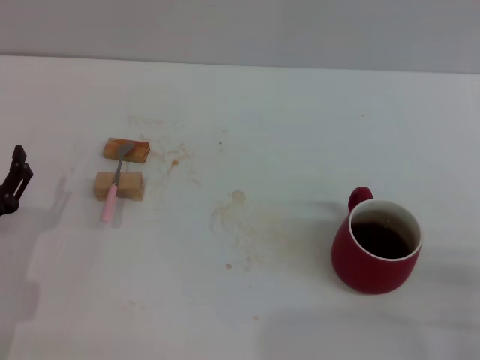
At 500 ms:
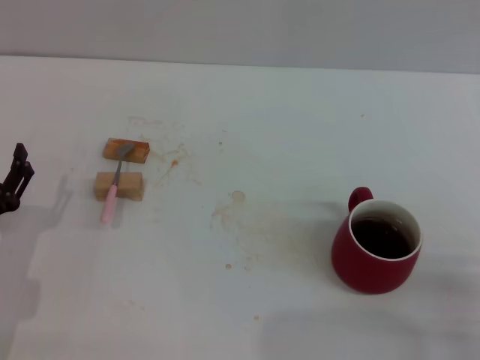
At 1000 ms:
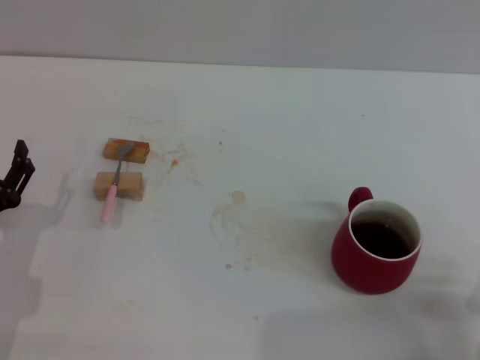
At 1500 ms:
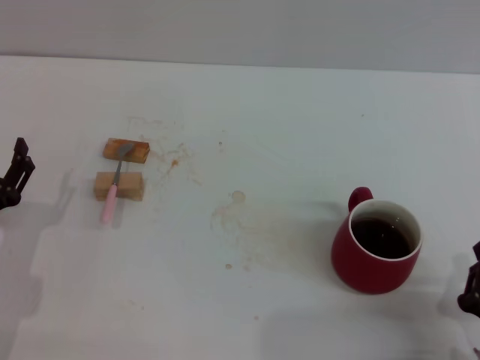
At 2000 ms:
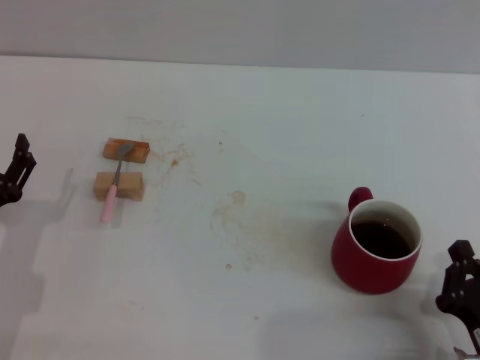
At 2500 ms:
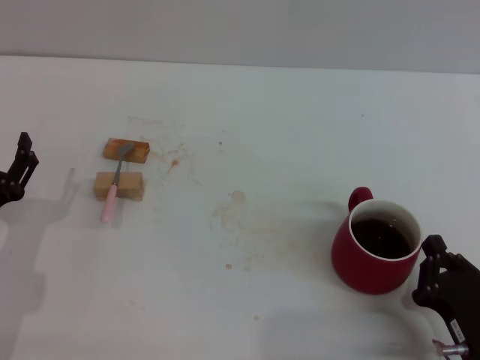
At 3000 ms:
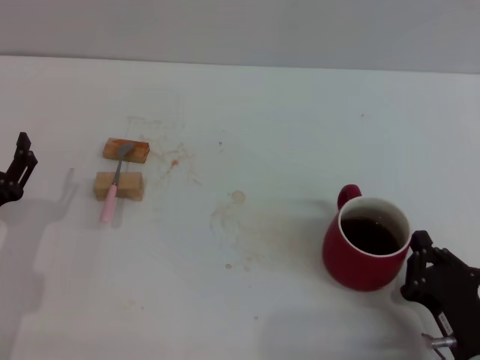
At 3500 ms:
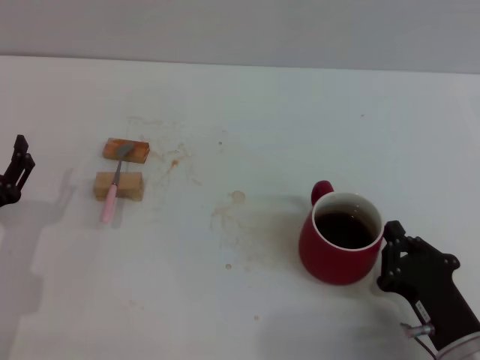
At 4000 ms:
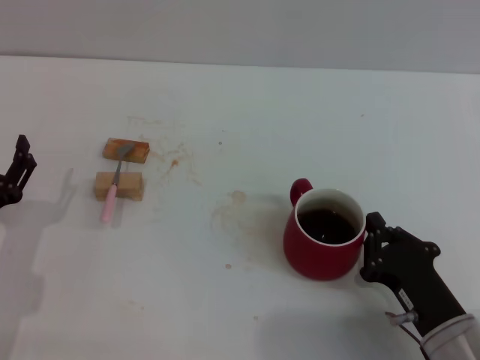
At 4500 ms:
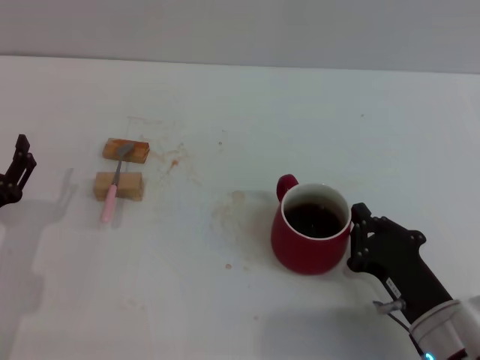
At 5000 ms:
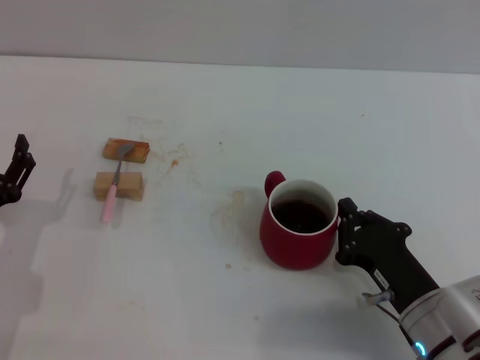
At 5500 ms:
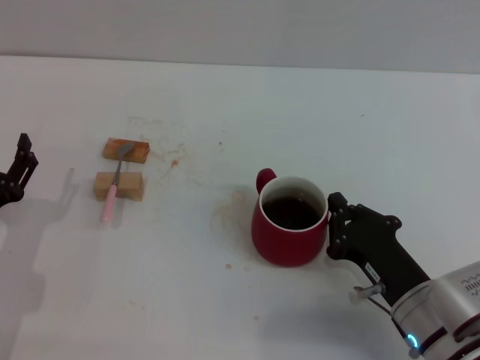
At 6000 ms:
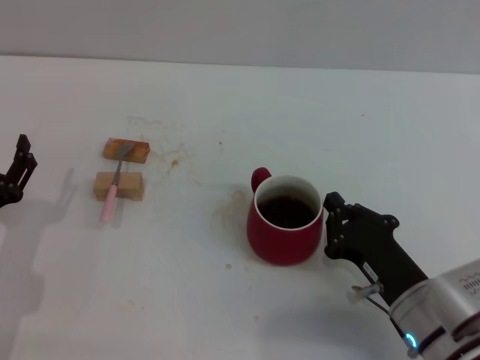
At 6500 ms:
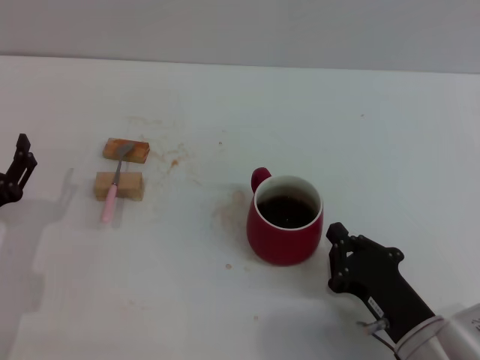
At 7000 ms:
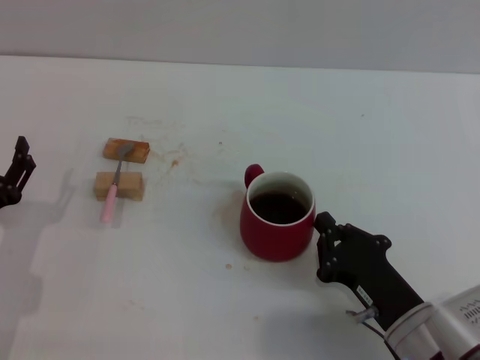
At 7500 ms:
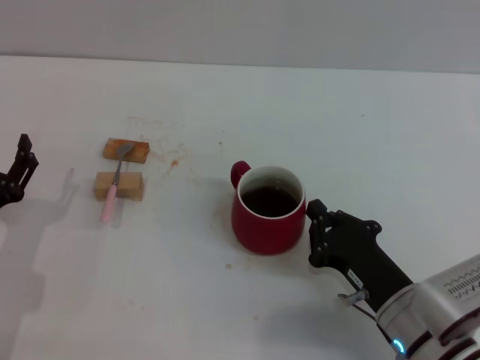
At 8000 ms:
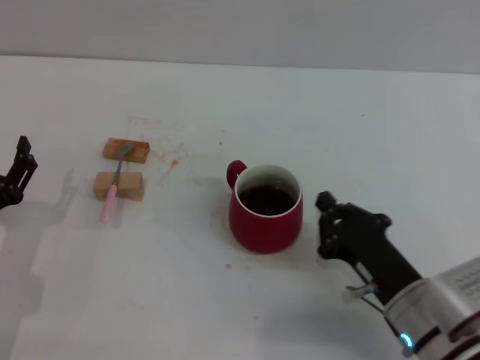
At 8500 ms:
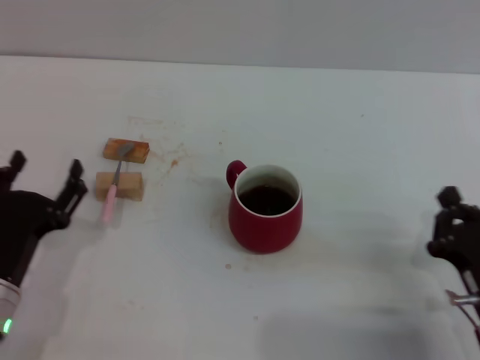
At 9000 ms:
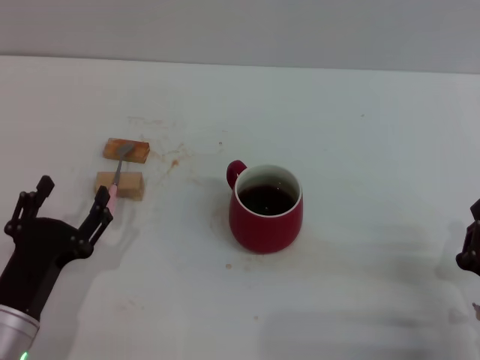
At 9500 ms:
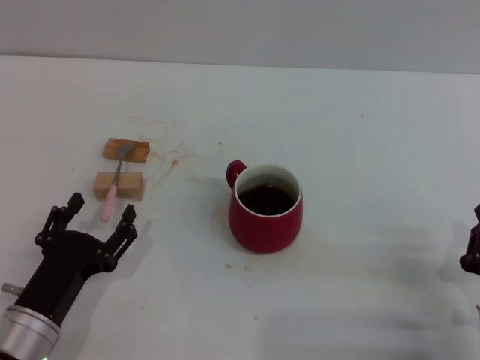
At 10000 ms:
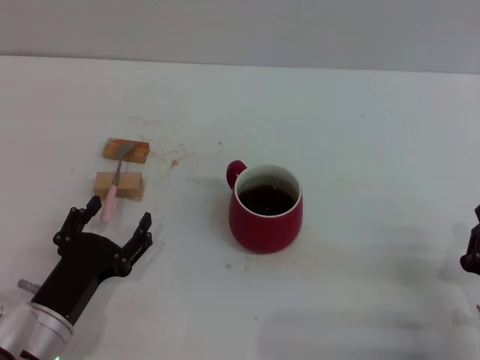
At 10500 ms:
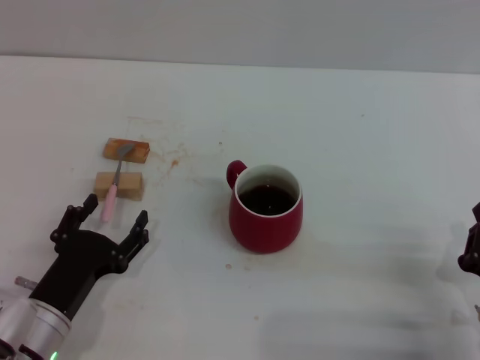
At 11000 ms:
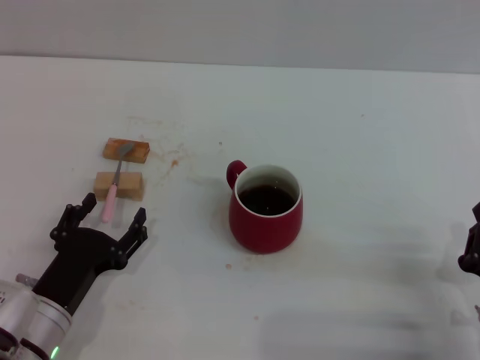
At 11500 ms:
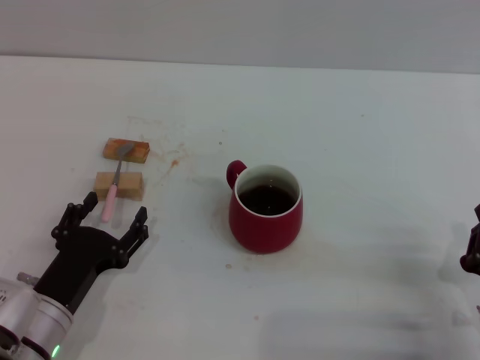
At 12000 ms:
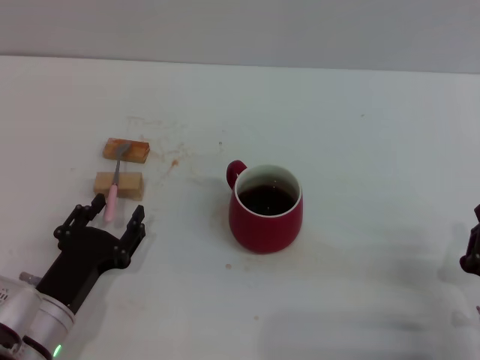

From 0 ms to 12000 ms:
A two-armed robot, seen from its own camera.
Task of the whole recording: Move the red cup to the center, lift the pink spoon, stir it three times in the cup, and put the spoon into the cup.
Step, from 0 ms to 7500 ms: Move the cup in the center of the table with right gripper.
From 0 ms to 2000 ms: The right gripper heads to the left, covering about 5 cm.
From 2000 ms to 4000 ms: The right gripper travels forward by approximately 5 cm.
From 4000 ms to 8000 ms: The grippers move only a little.
From 8000 ms to 10000 ms: The right gripper moves to the right and backward, roughly 10 cm. Meanwhile the left gripper moves to the right, some 5 cm.
From 10000 ms to 12000 ms: Both grippers stay put.

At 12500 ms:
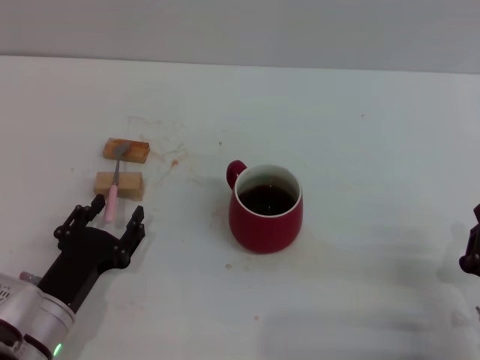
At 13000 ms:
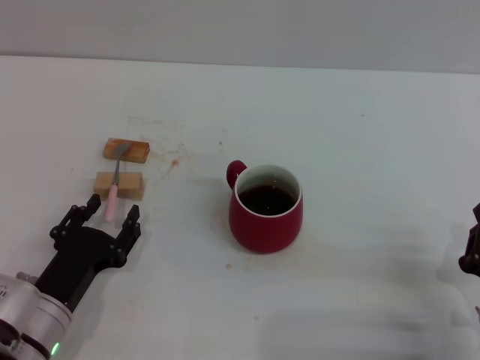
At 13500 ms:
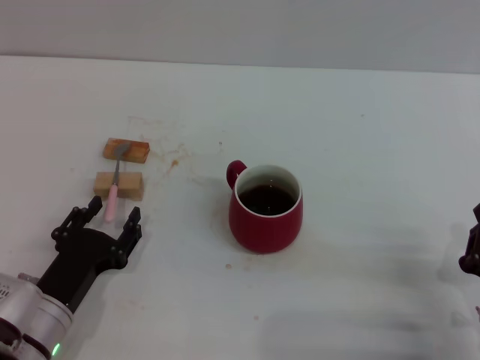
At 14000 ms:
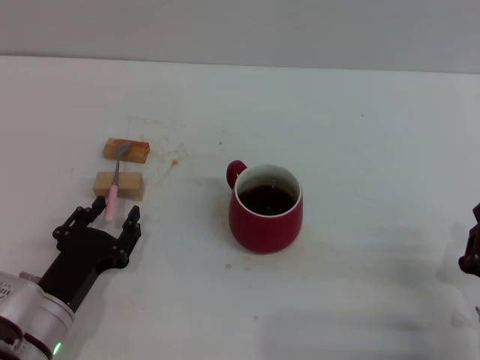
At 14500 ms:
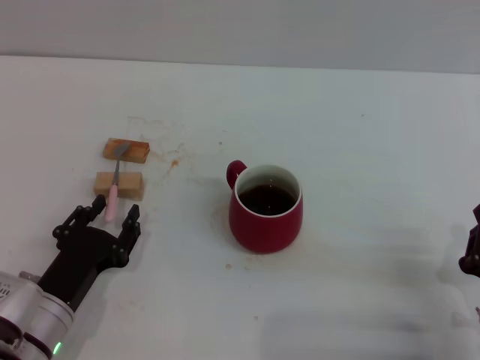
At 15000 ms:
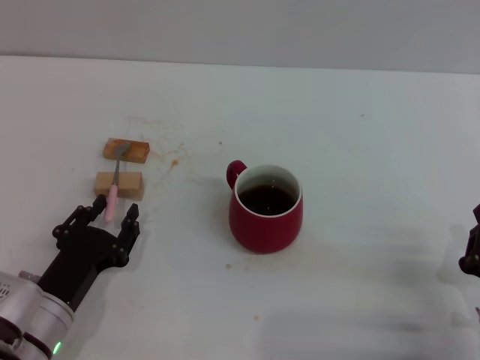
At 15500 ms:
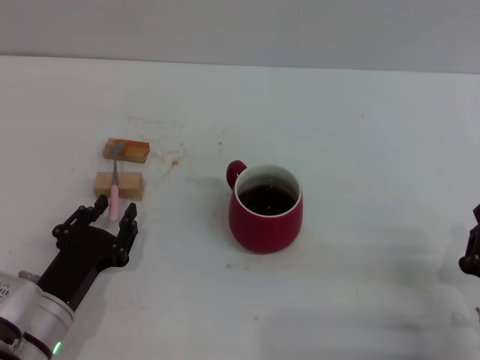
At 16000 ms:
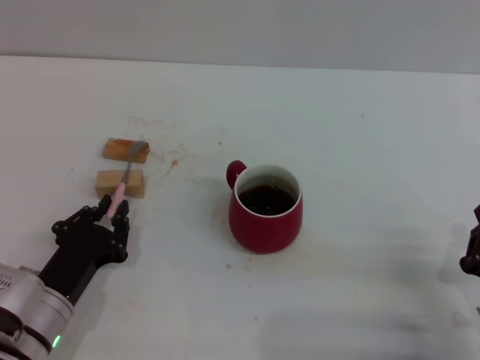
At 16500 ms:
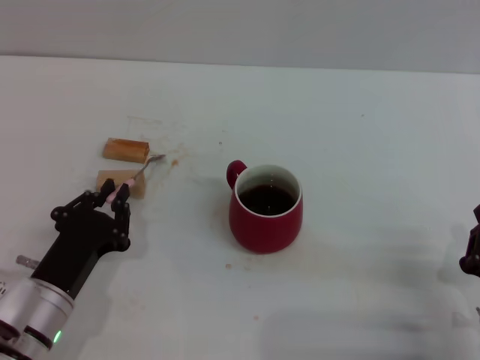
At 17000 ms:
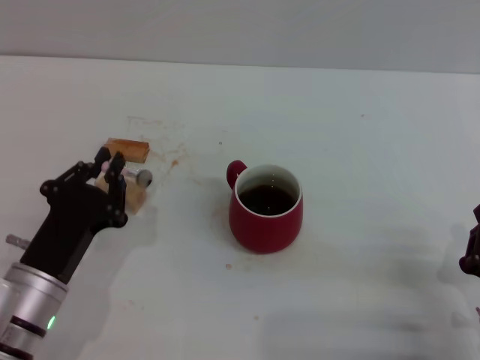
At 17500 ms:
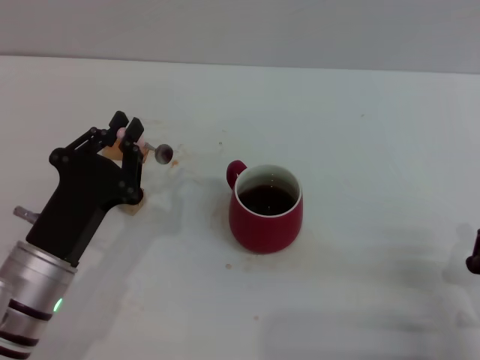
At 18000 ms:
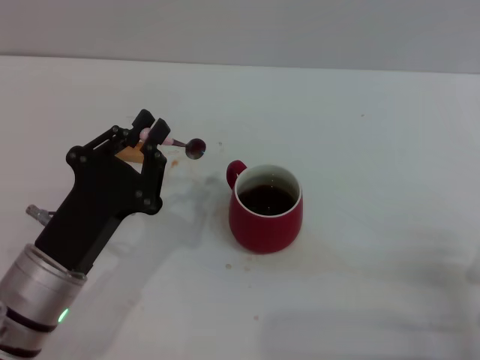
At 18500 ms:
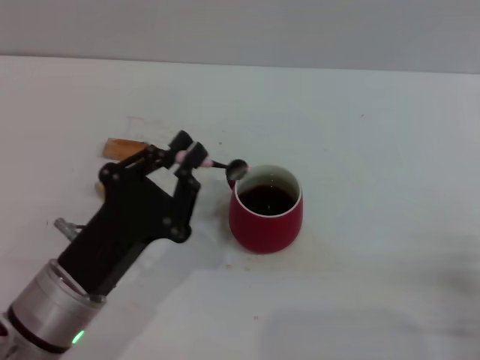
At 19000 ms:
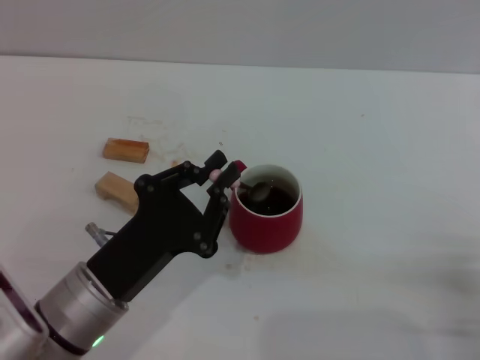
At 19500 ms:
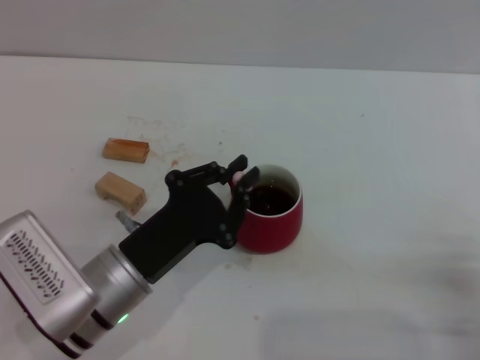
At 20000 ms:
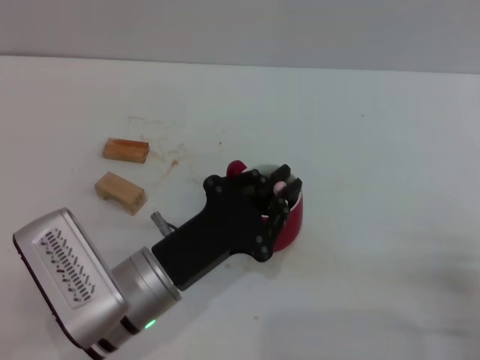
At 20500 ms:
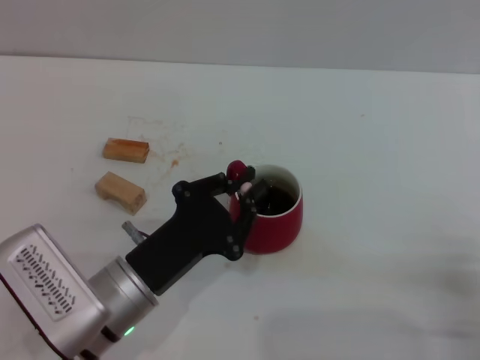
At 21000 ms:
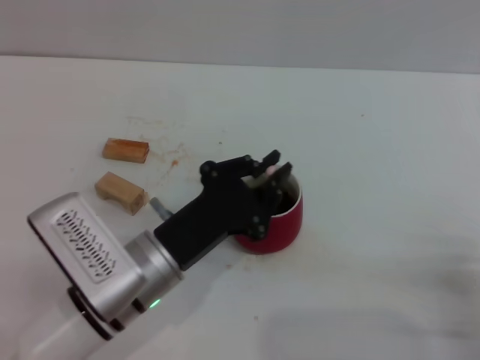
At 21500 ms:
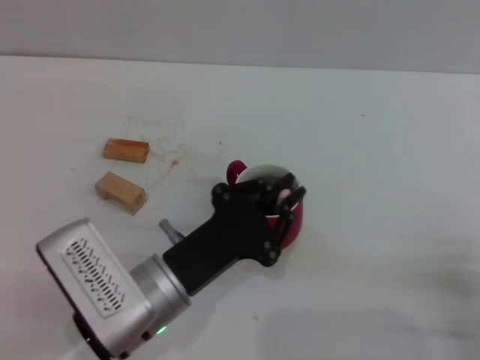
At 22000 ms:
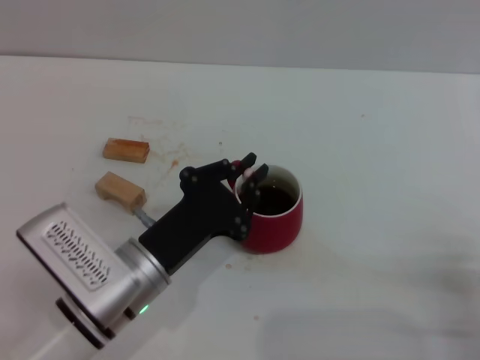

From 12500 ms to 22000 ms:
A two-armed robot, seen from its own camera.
Task of the whole recording: Move the red cup to the center, lift the pink spoon, stir it three times in the cup, and put the spoon into the cup.
Step, from 12500 ms to 16000 ms: Grasp the spoon with left gripper.
From 12500 ms to 14500 ms: Neither gripper changes place.
From 14500 ms to 16500 ms: The left gripper closes up.
From 16500 ms to 18000 ms: The left gripper heads upward, covering about 5 cm.
From 18000 ms to 20000 ms: The left gripper goes some 5 cm to the right.
From 20000 ms to 22000 ms: The grippers stay close to where they were, moving slightly.

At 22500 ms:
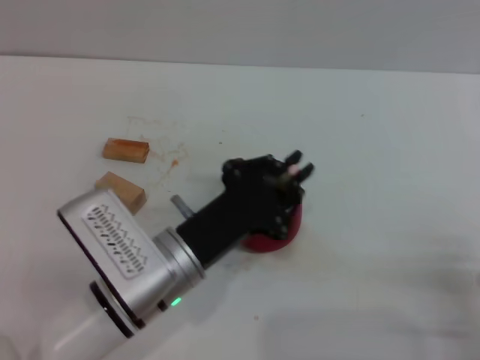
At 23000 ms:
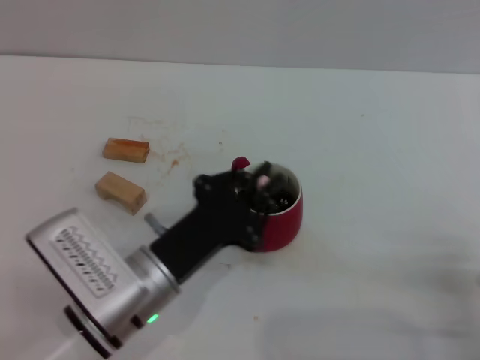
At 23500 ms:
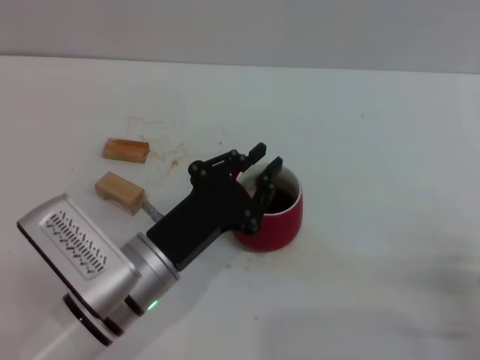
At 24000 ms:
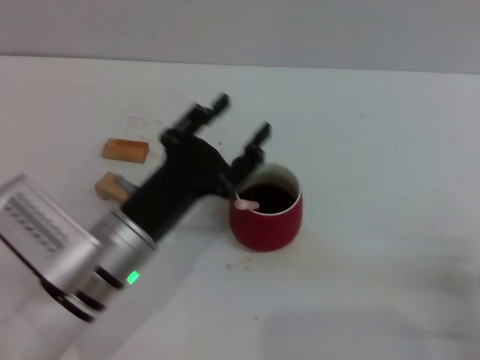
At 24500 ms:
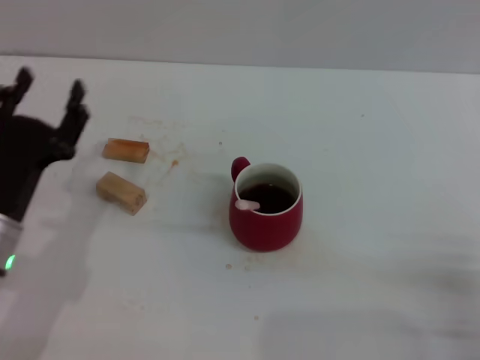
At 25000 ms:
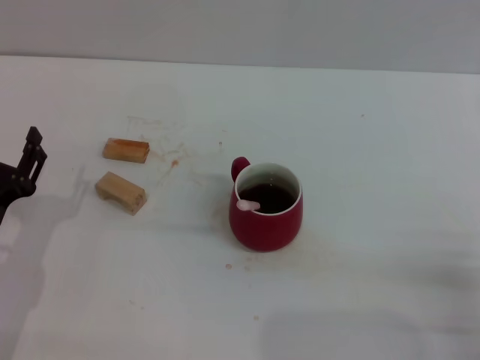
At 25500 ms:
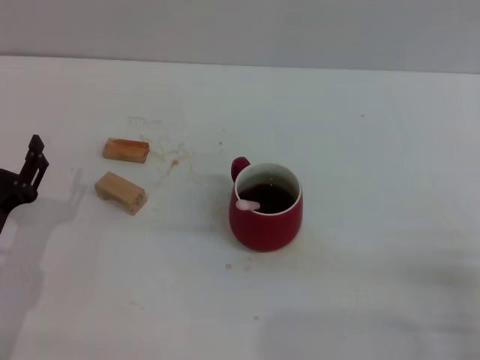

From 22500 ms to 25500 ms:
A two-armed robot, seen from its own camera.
Task of the whole recording: Move the red cup to the center, lift the pink spoon, stir it three times in the cup, and put the spoon into the cup.
From 22500 ms to 24000 ms: The left gripper opens.
From 24000 ms to 25500 ms: The left gripper travels to the left by about 15 cm, and opens its fingers.
